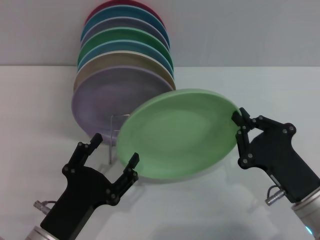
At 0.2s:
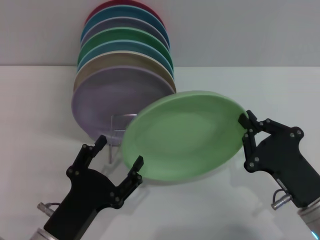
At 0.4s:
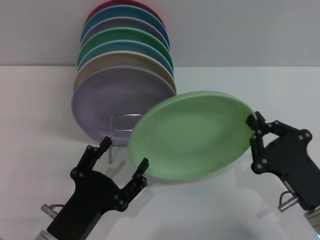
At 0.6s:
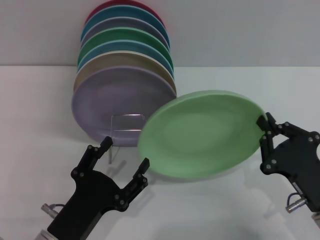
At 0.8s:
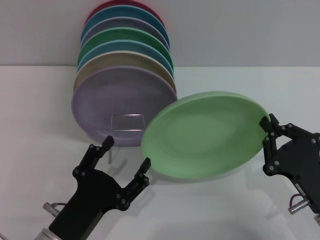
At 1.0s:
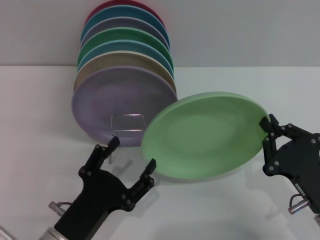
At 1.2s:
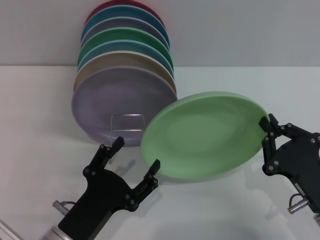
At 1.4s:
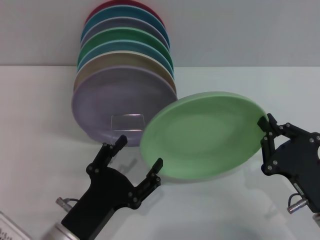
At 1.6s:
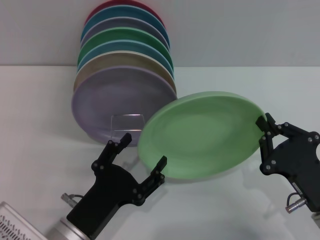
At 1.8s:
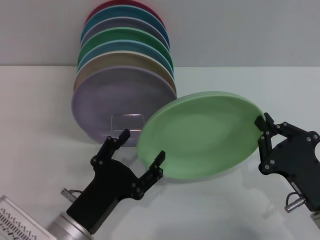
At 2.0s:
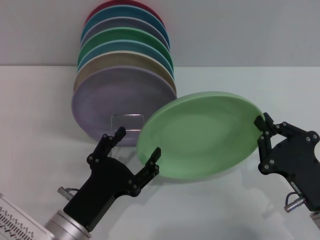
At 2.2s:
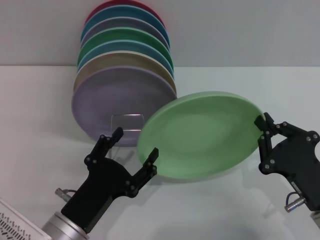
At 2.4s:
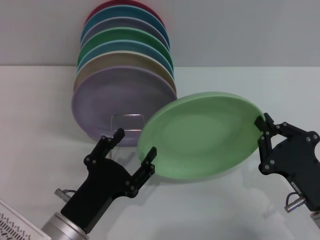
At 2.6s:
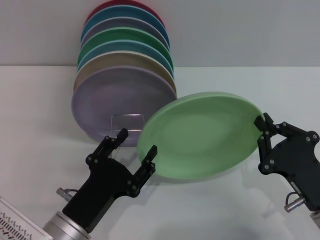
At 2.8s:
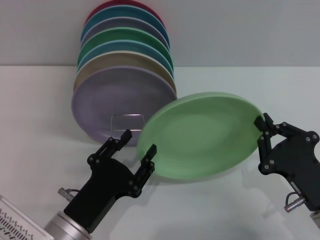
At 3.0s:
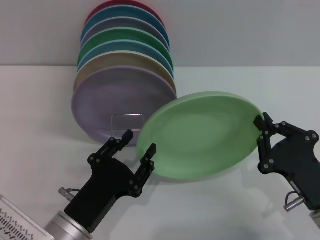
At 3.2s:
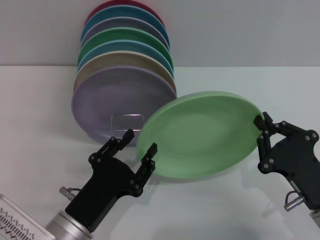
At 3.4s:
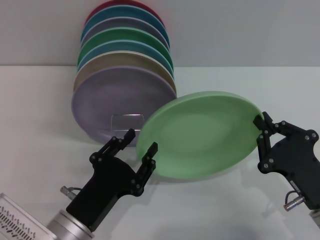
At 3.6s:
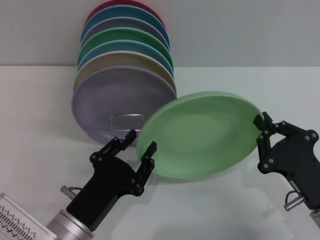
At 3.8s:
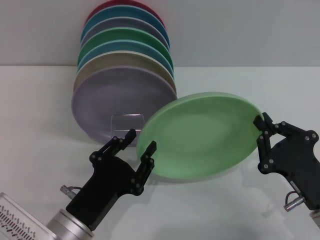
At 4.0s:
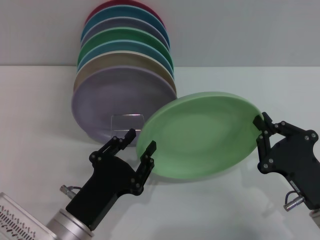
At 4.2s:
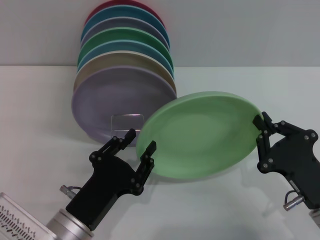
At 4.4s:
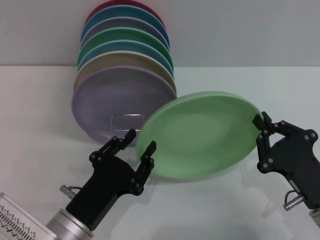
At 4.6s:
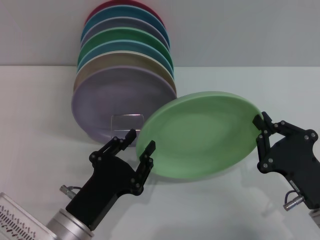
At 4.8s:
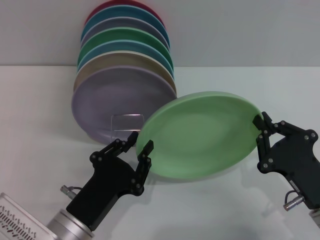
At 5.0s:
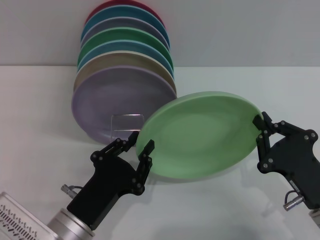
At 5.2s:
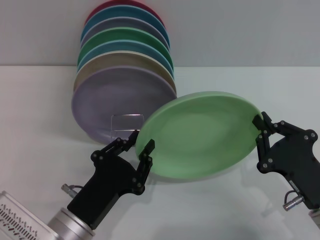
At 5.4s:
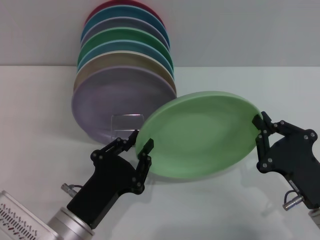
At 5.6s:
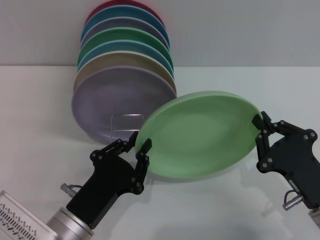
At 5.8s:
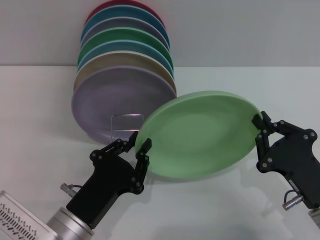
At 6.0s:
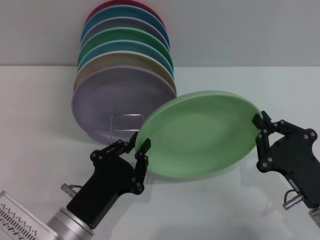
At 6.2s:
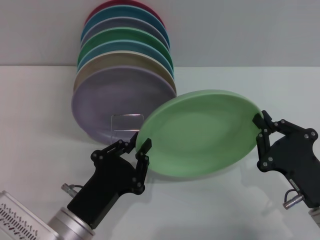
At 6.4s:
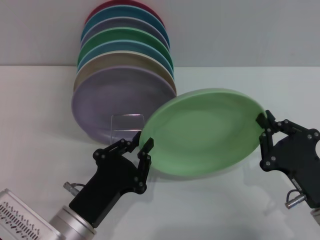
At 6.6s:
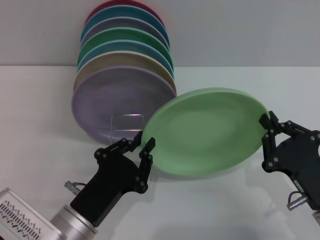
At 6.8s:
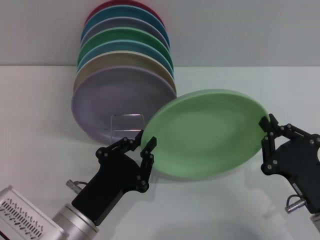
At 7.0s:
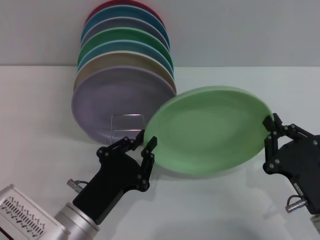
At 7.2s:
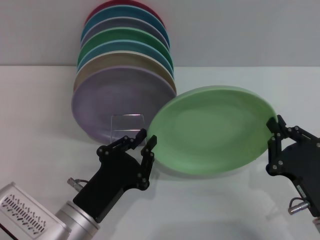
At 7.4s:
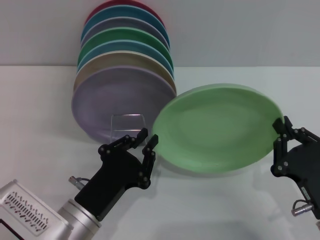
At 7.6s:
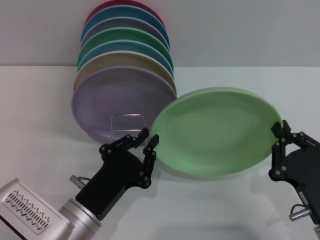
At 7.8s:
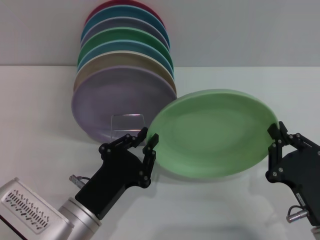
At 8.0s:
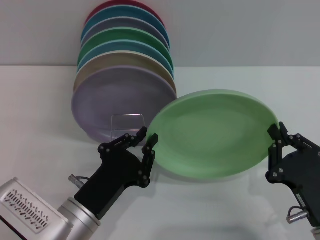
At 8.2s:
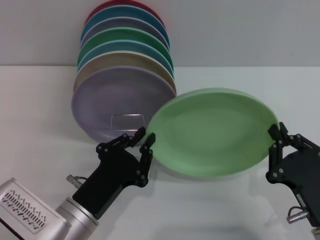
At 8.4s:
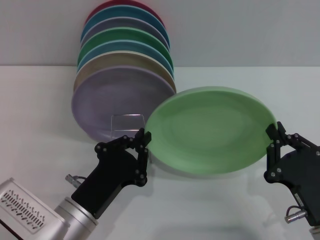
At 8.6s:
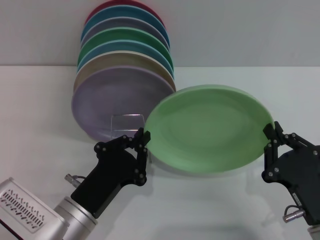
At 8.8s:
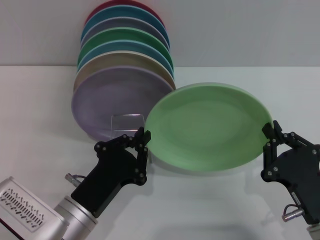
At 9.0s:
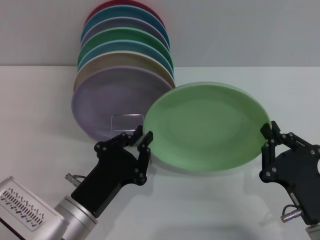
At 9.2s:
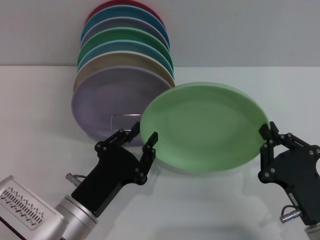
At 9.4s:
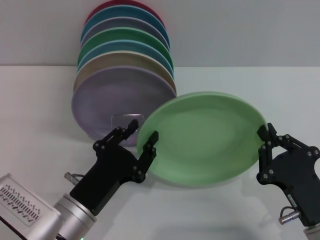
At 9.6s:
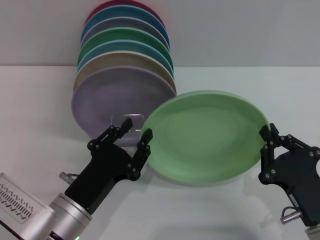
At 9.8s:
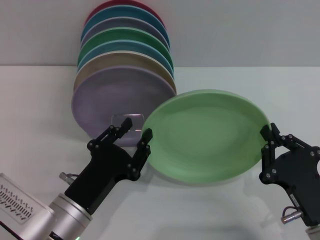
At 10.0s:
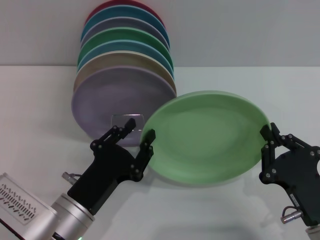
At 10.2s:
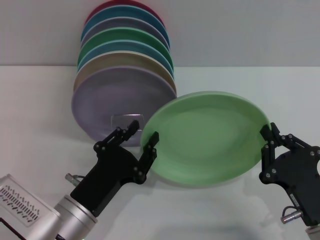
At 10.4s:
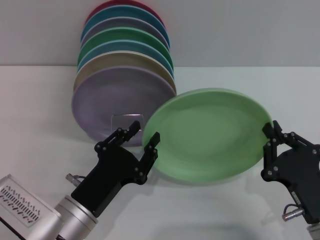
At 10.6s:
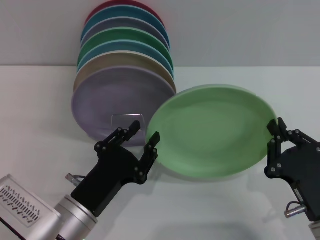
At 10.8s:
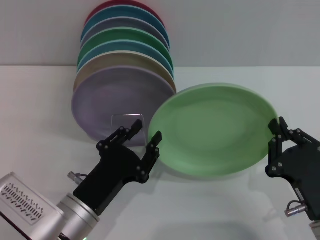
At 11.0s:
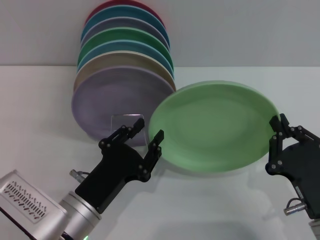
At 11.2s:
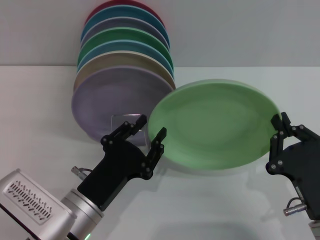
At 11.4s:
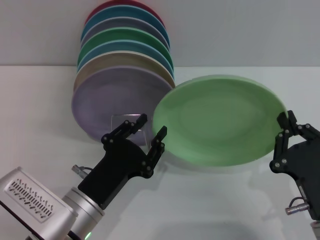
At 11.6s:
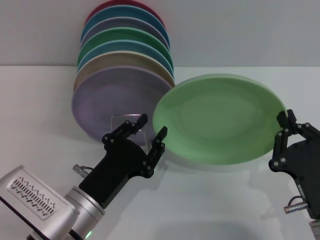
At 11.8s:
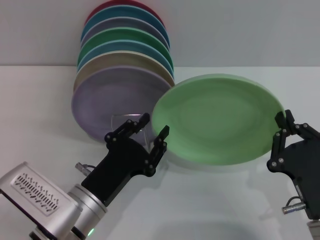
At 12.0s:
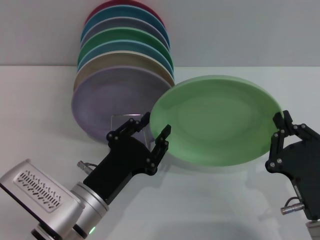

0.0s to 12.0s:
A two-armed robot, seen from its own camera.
Task of the whole recording: Grip the plate with one hand, pass it to the other, then set it on the shelf.
0.0s to 1.6s: The grippers make only small movements.
1.6s to 3.0s: The left gripper closes up.
3.0s to 6.0s: Both grippers stay put.
6.0s to 7.6s: The grippers stay close to where they were, moving slightly.
7.6s to 9.0s: Both grippers stay about where they are.
9.0s to 10.4s: The left gripper opens.
10.4s to 12.0s: The grippers make only small movements.

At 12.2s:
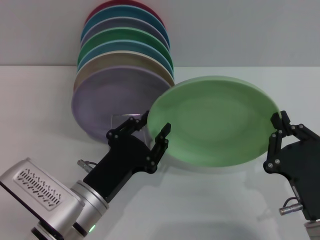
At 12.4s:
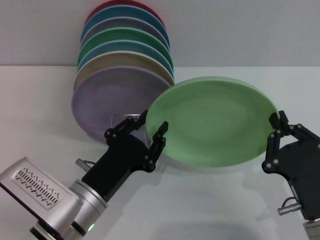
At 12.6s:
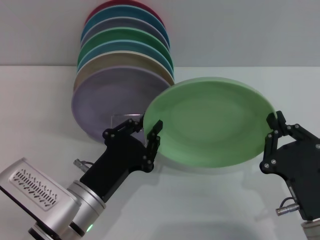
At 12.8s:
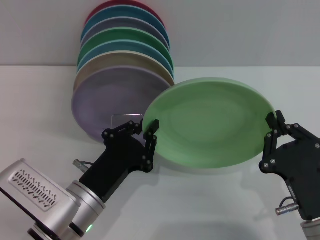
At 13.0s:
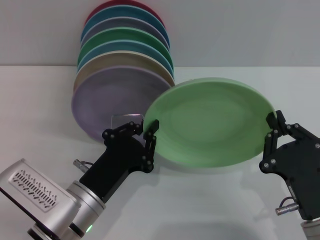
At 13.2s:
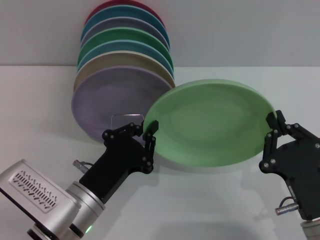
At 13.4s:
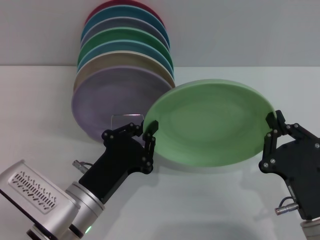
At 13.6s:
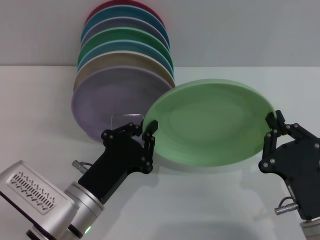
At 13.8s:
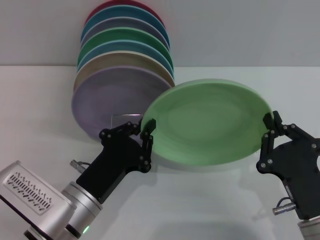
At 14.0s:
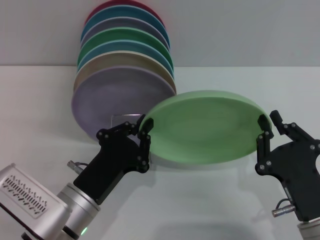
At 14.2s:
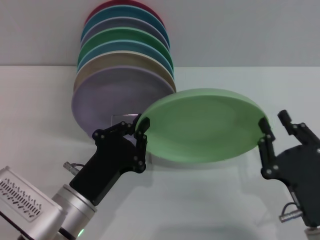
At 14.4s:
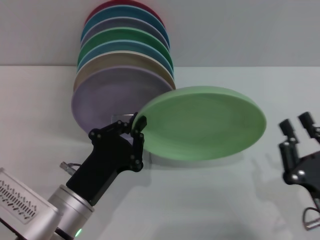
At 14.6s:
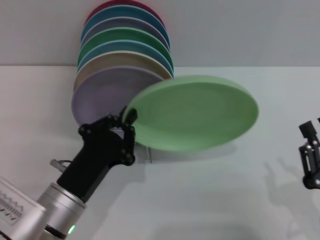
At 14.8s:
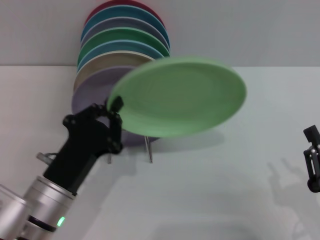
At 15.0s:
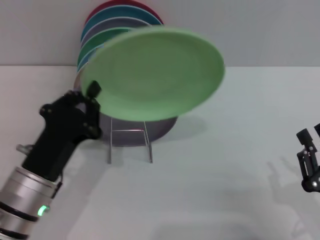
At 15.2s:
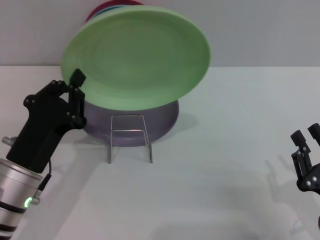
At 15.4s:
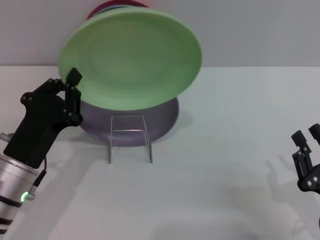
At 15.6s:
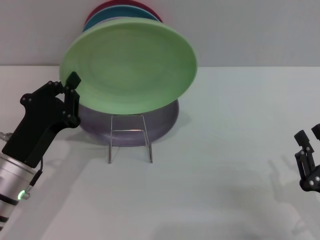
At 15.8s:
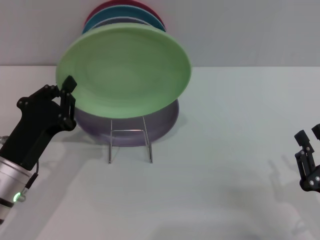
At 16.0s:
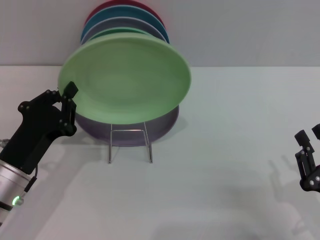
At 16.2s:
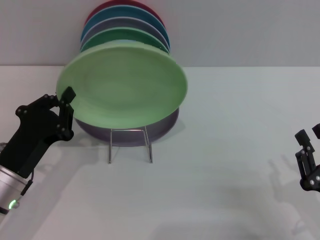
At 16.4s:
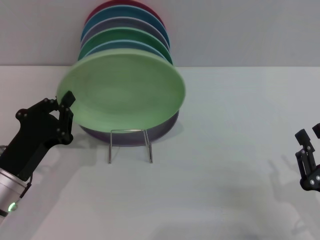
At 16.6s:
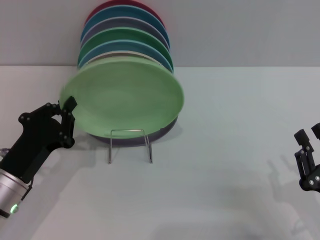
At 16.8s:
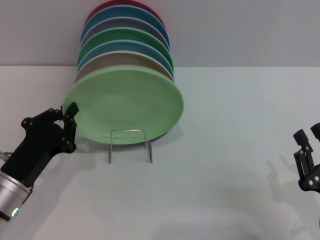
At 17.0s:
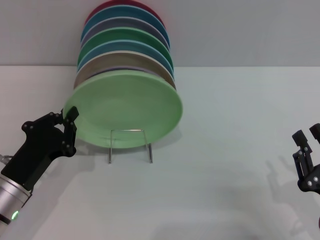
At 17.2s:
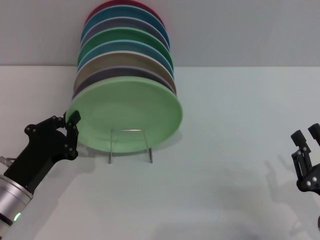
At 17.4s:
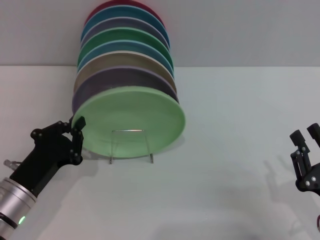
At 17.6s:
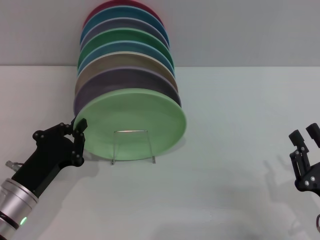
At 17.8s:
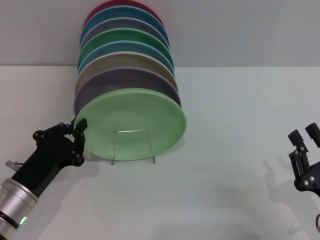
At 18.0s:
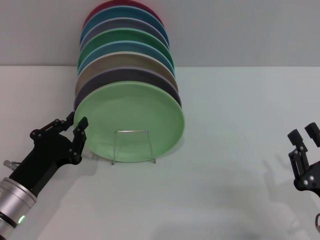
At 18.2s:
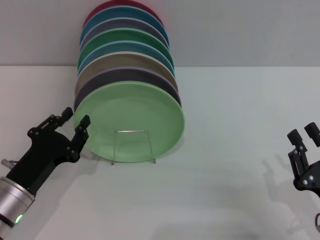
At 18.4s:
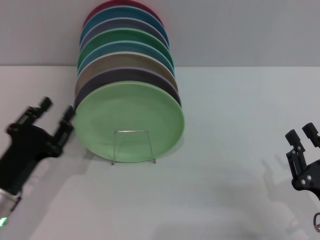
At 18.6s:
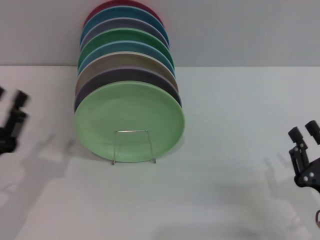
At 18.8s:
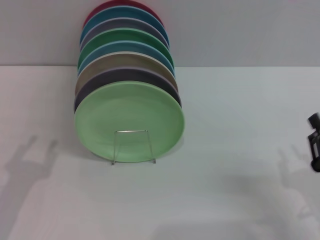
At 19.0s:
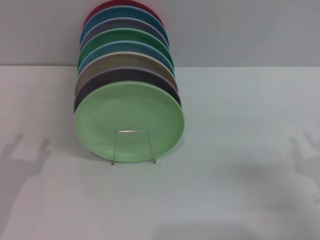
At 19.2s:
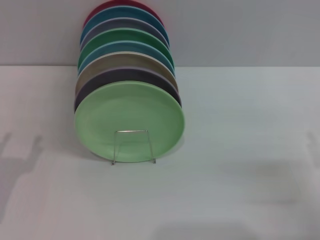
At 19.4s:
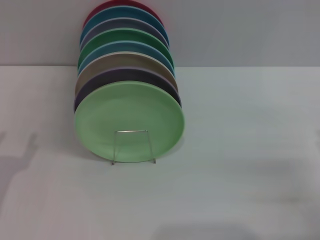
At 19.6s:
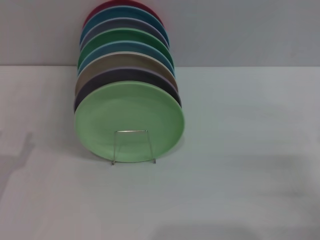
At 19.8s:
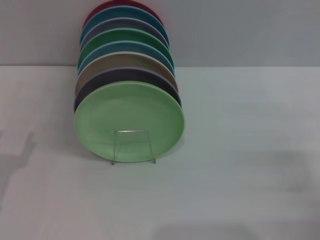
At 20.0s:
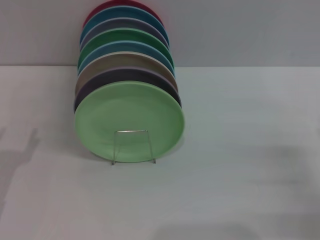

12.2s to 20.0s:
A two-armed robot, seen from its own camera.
Task of the whole recording: Grip the plate with one hand, pass it to the other, then set it on the shelf.
Step, 12.2s to 14.4s: Pass the plate from the right gripper to the left gripper.
Step, 14.6s to 18.2s: Place the plate on the shelf with the left gripper.
12.2s to 13.8s: The left gripper closes its fingers.
13.8s to 15.4s: The left gripper is displaced to the left by roughly 5 cm. Meanwhile the right gripper shifts about 5 cm to the right.
16.8s to 18.4s: The grippers stay close to where they were, moving slightly.
18.4s to 20.0s: The right gripper travels to the right and forward by roughly 10 cm, and opens up. The left gripper is displaced to the left by approximately 5 cm, and opens.

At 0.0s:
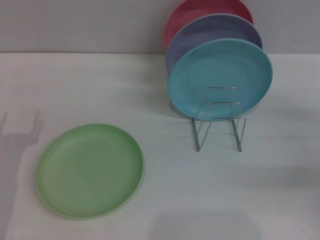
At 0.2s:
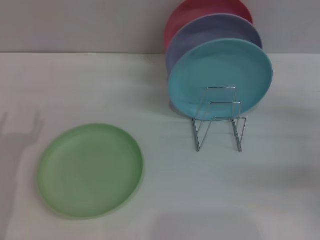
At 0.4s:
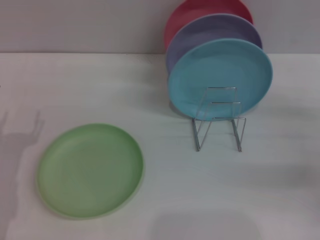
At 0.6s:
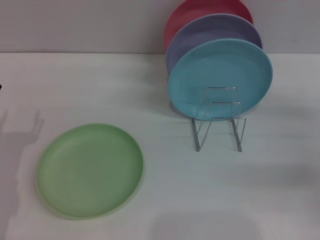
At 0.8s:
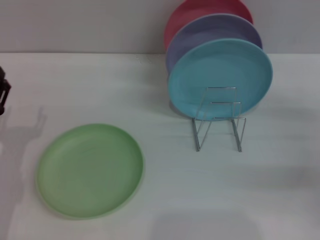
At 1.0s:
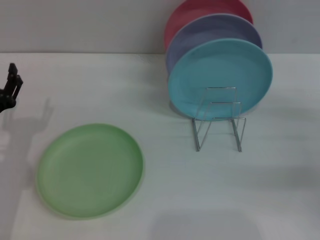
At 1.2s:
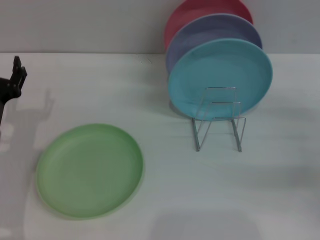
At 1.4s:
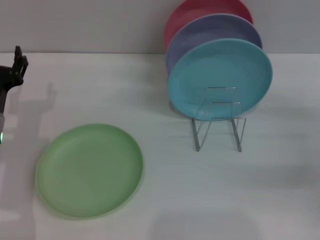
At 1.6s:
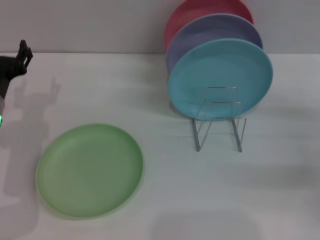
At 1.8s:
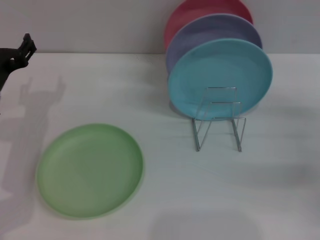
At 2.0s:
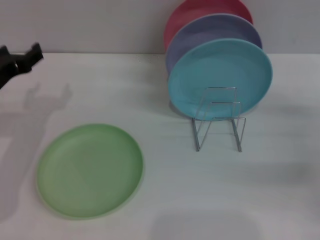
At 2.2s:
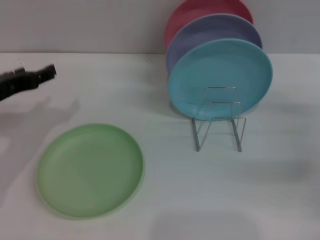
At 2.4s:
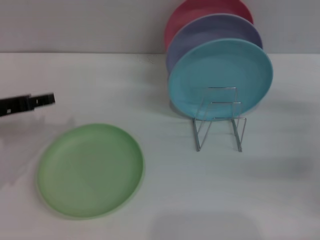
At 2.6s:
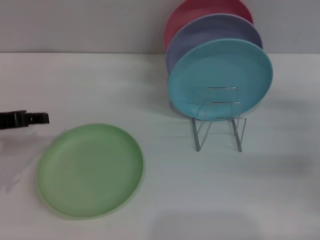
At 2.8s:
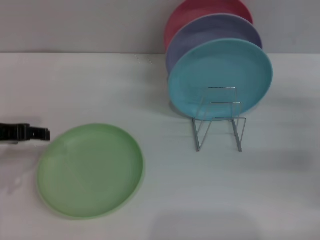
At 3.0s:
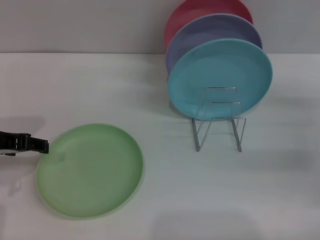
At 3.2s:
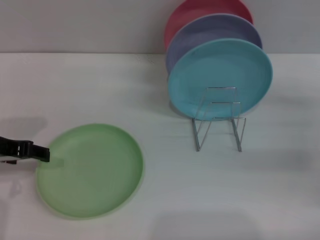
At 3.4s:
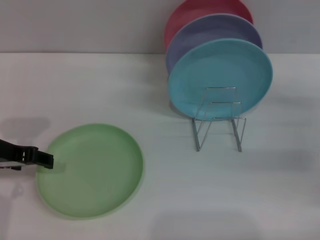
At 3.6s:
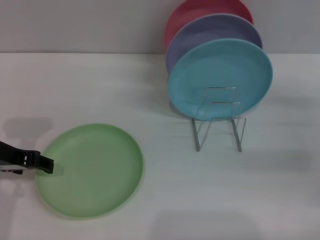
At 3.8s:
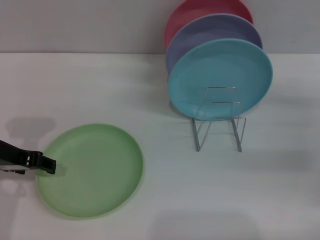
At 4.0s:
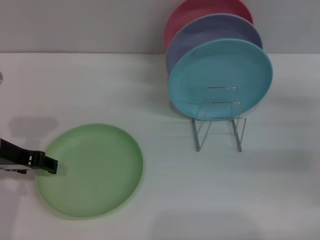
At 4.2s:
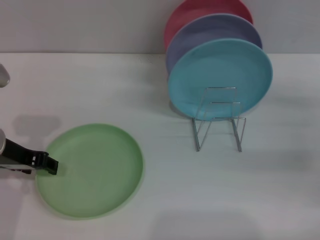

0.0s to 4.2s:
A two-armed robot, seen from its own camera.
Task of the whole recording: Grip the plate with one hand, pass it to the other, then set it on the shelf.
0.0s to 1.4s: The left gripper shifts about 10 cm forward.
1.4s to 2.8s: The left gripper shifts some 10 cm upward.
2.8s to 4.2s: The grippers move only a little.
